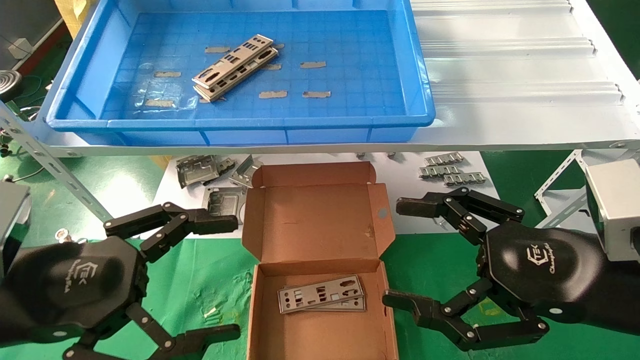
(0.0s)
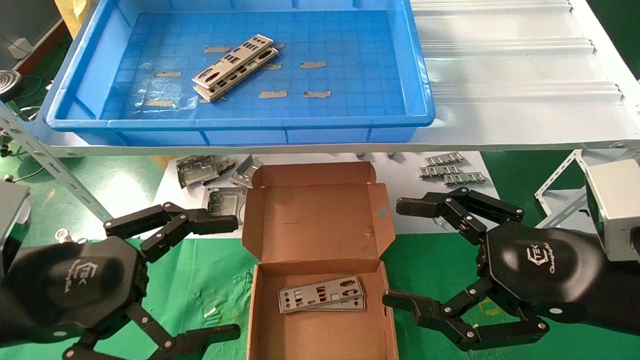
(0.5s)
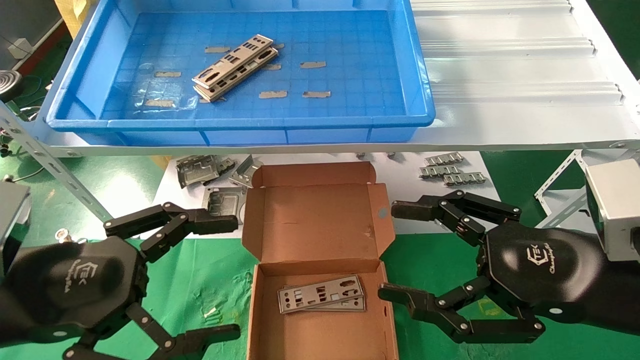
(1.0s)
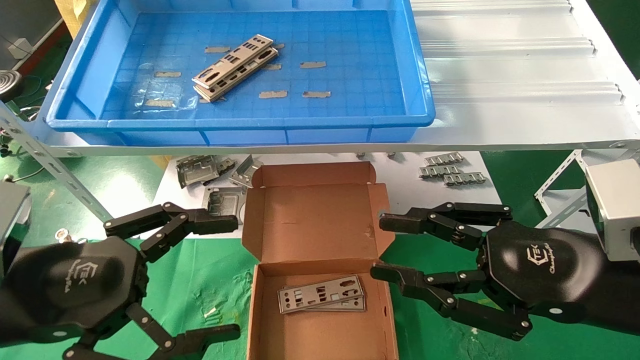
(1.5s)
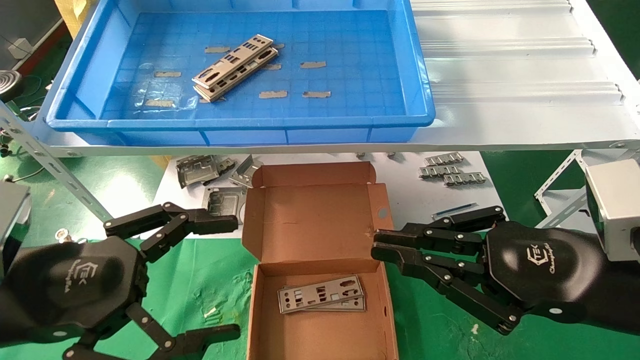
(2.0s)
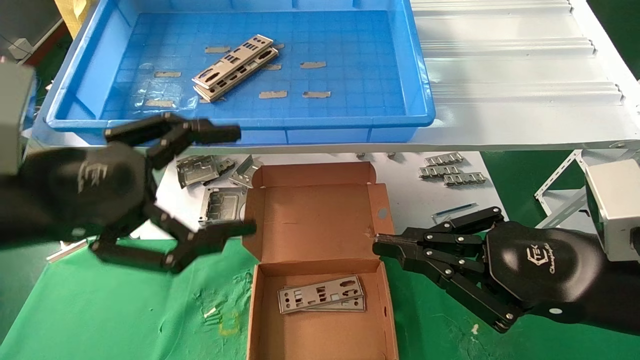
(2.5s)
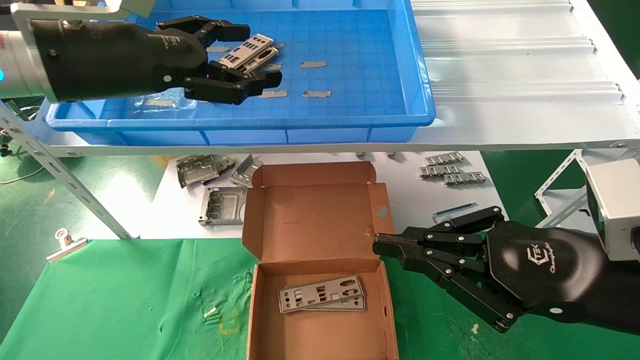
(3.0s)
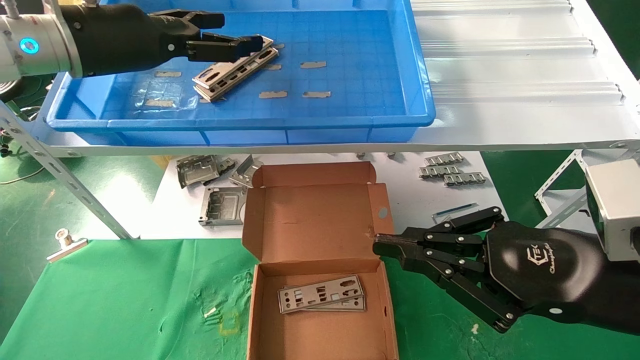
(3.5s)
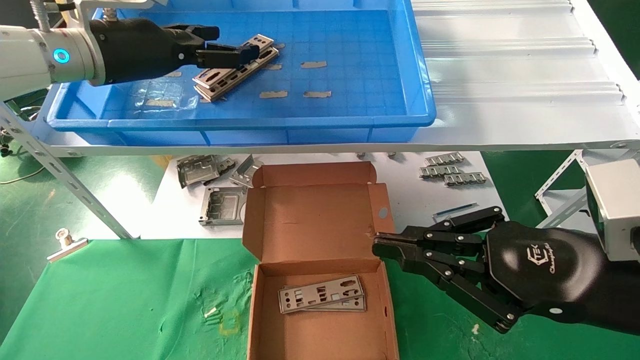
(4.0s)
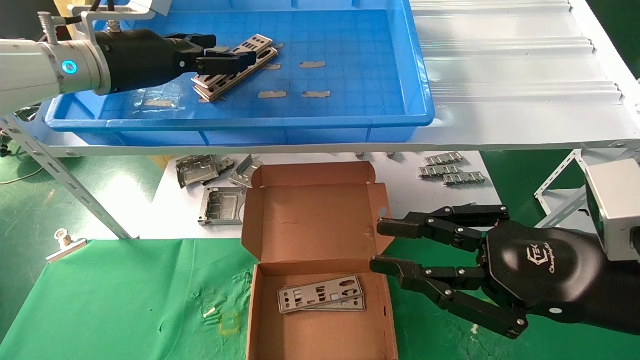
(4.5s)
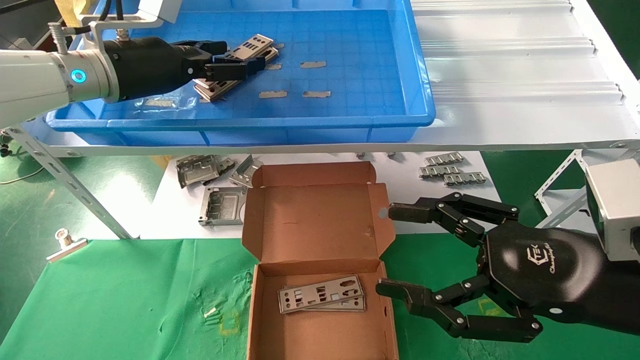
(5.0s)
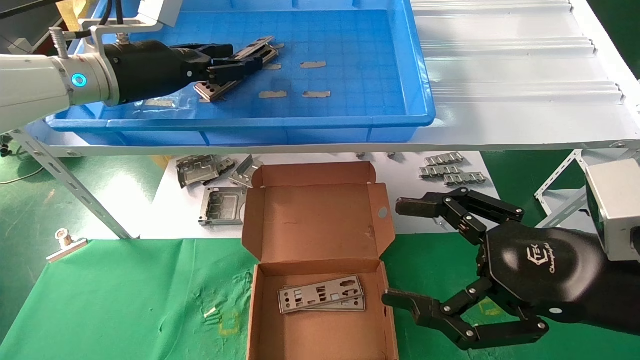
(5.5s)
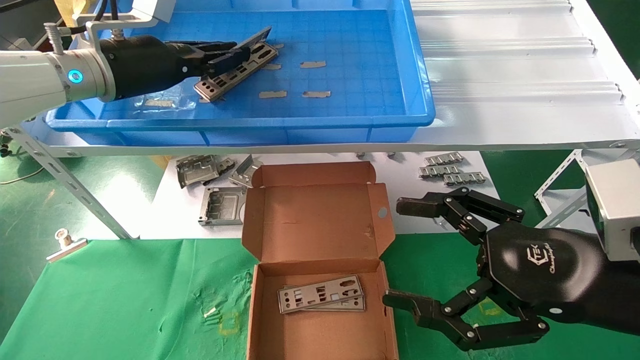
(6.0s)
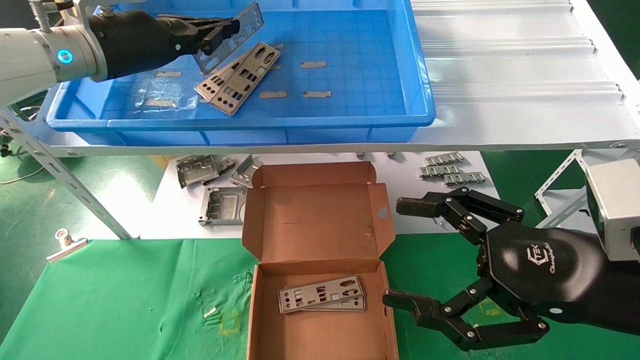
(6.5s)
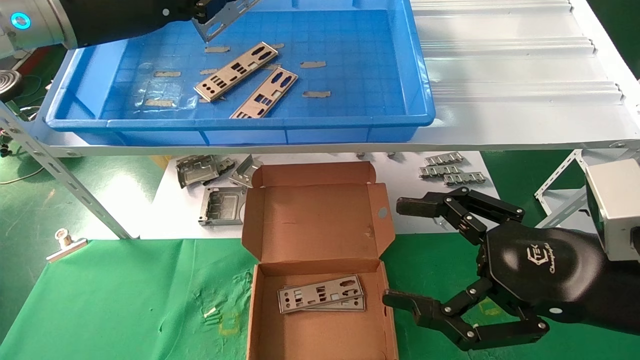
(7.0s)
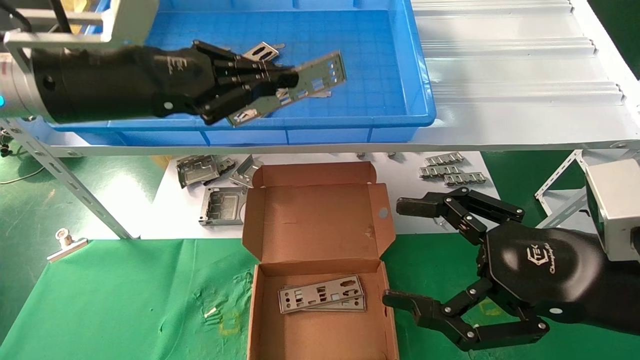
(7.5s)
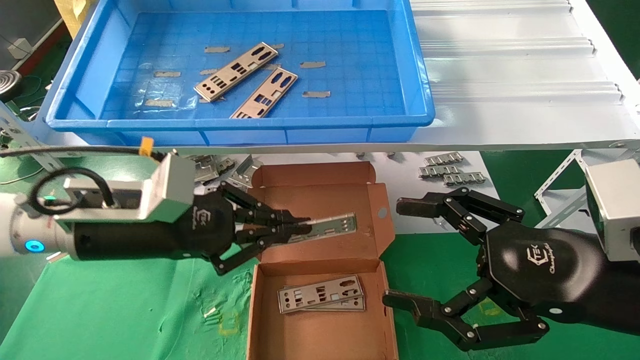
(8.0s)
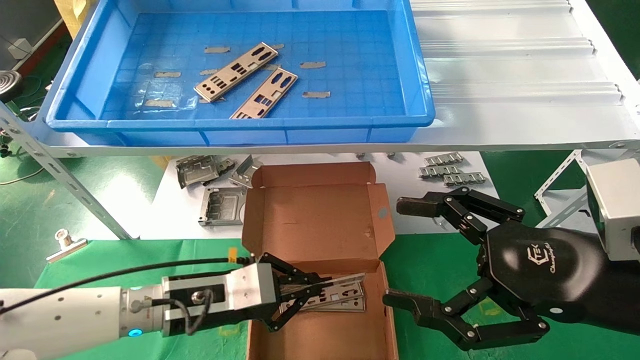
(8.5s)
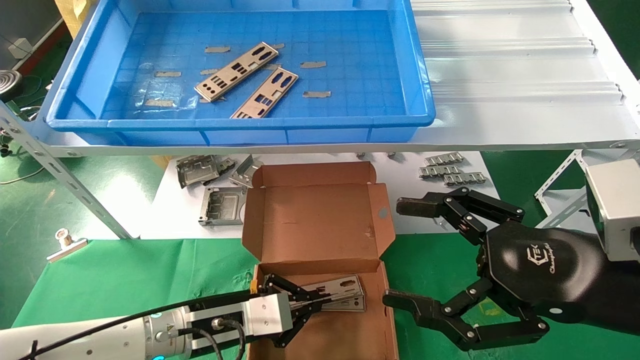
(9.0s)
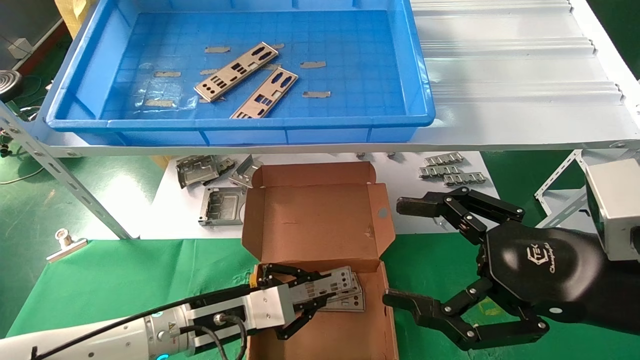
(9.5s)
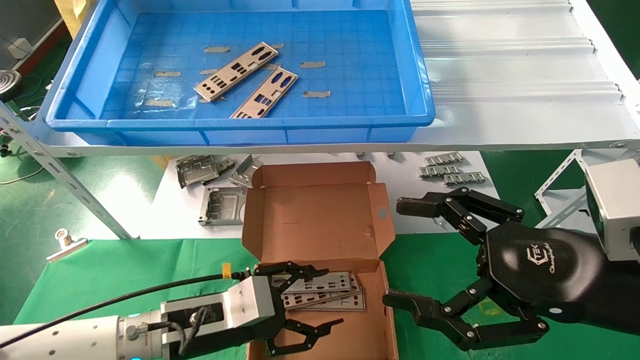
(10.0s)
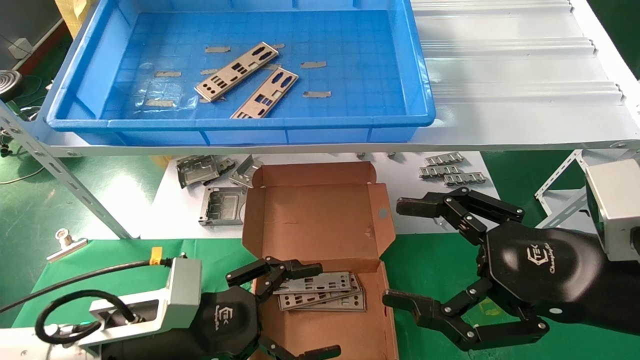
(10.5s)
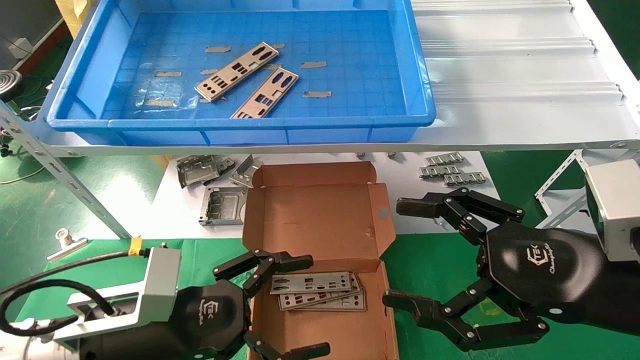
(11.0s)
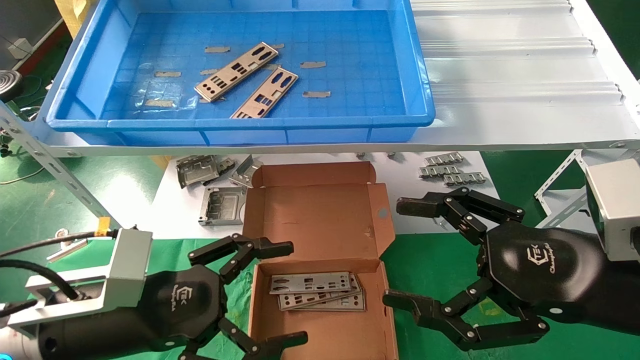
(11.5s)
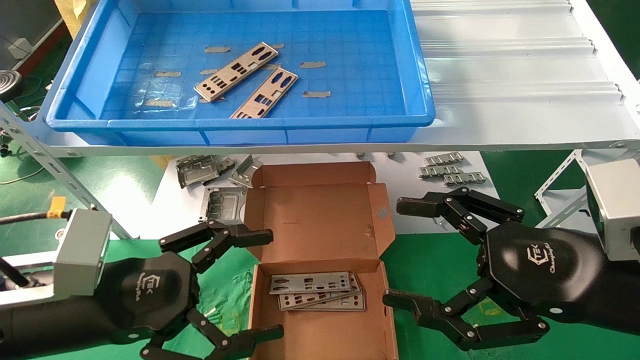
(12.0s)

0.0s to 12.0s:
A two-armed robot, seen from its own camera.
Task of the whole recording: pick up the parts on the tray and put them in the cardboard box.
0.0s to 2.0s: The right gripper closes up.
2.0s to 4.0s: The left gripper moves forward and upward, some 30 cm.
4.0s to 6.0s: The left gripper closes up. Meanwhile the right gripper opens its fingers.
6.0s to 8.0s: The left gripper goes roughly 20 cm downward and backward.
8.0s to 10.0s: The left gripper goes approximately 15 cm downward, and opens up.
10.0s to 12.0s: The left gripper travels upward, backward and to the left by approximately 15 cm, and opens.

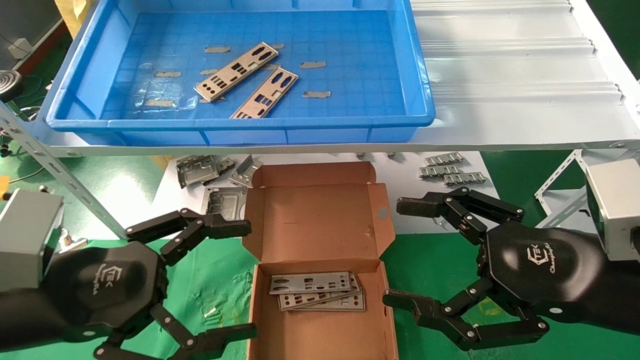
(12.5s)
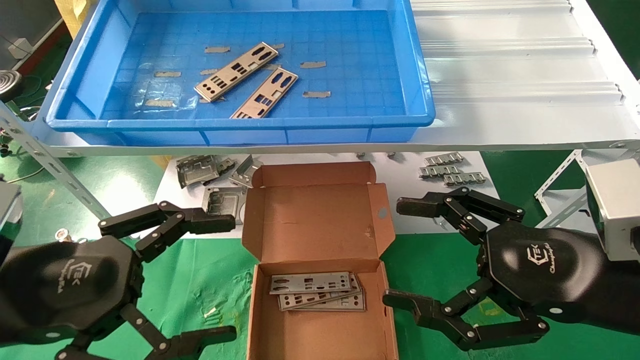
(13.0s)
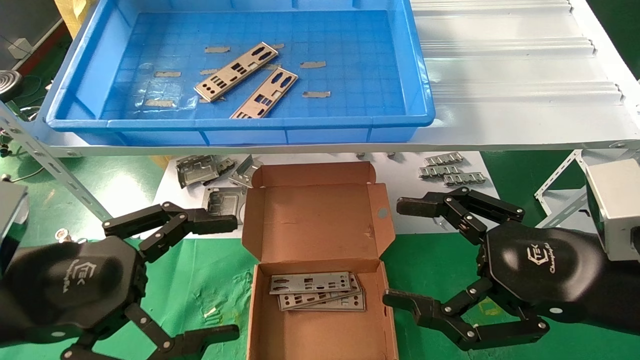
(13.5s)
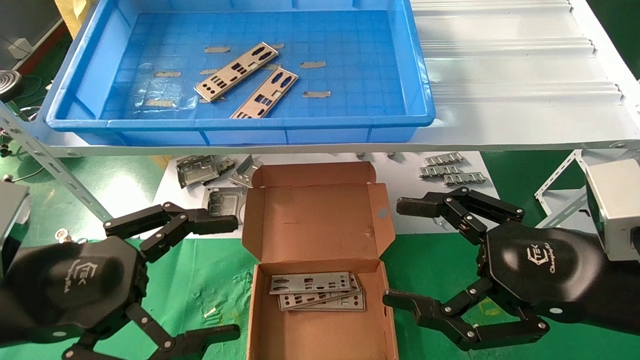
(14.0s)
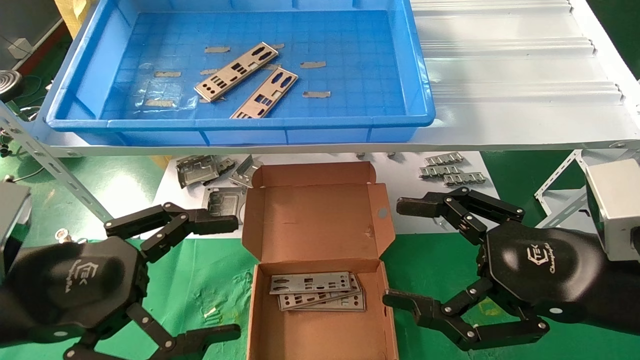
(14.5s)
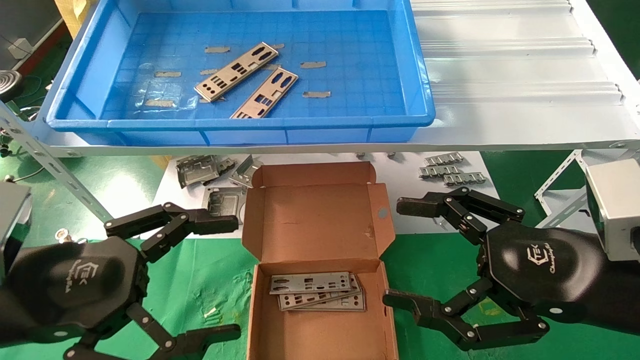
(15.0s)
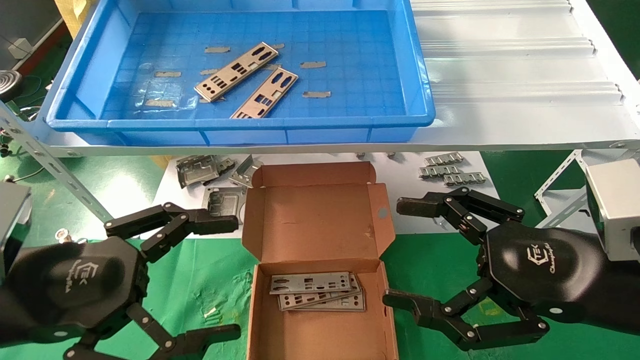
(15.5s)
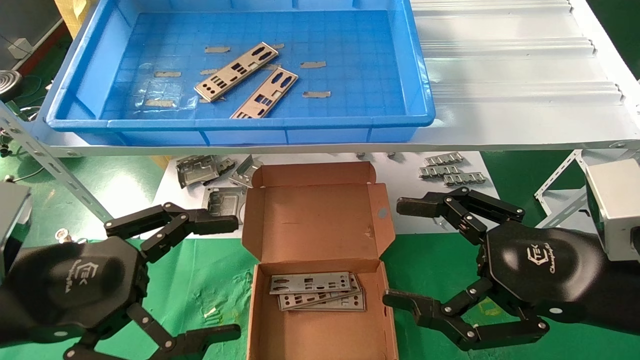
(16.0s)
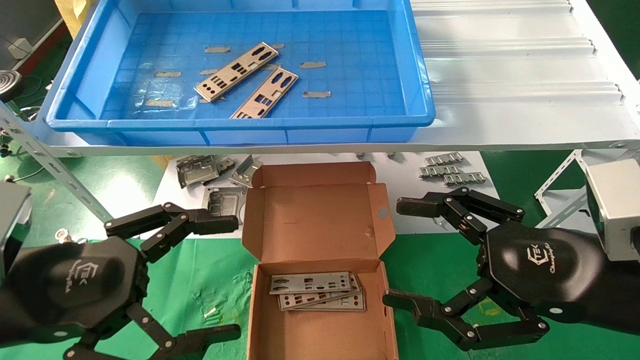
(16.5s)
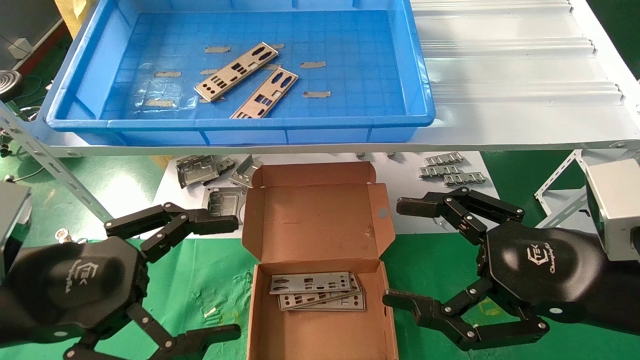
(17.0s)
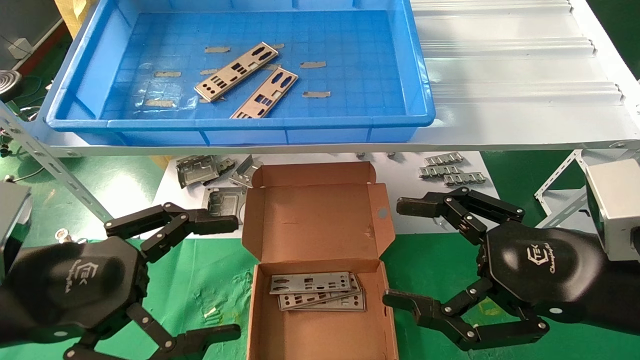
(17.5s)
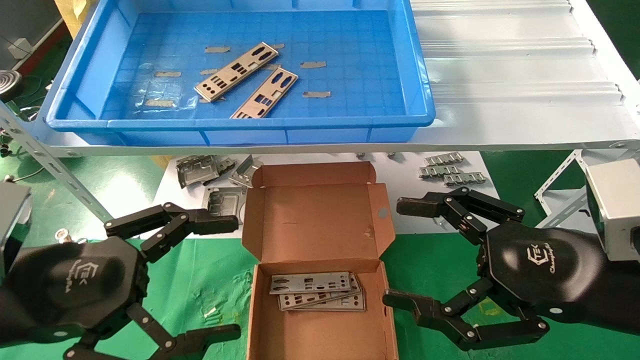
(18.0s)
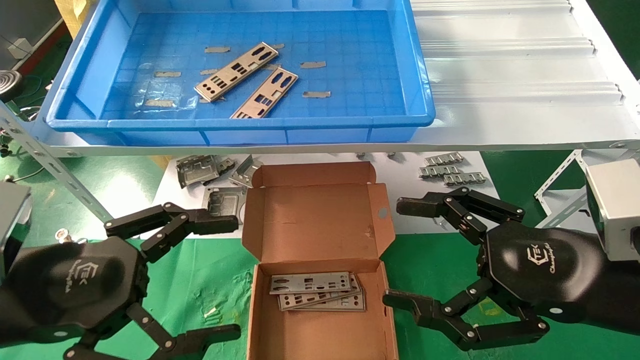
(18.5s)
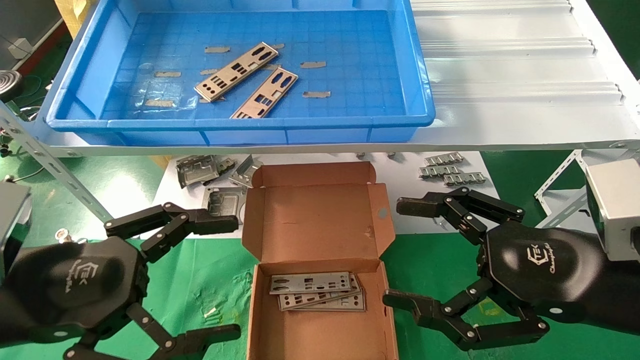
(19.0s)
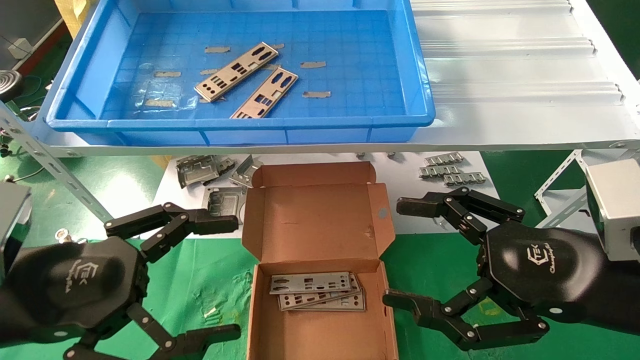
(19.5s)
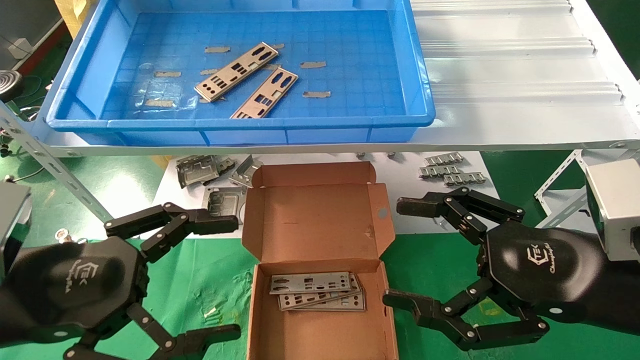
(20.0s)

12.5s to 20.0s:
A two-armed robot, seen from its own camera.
Task of the whole recording: pick up the parts on the tray and put them in the cardboard box.
12.5s to 14.5s: The grippers make only small movements.
14.5s to 20.0s: The two grippers keep their place.
